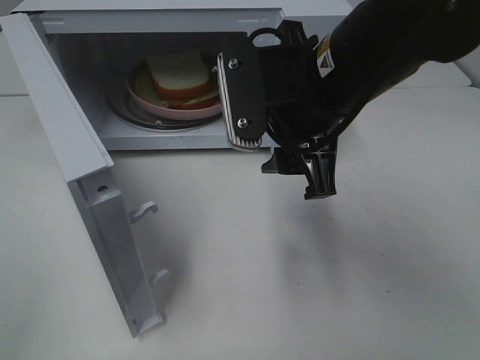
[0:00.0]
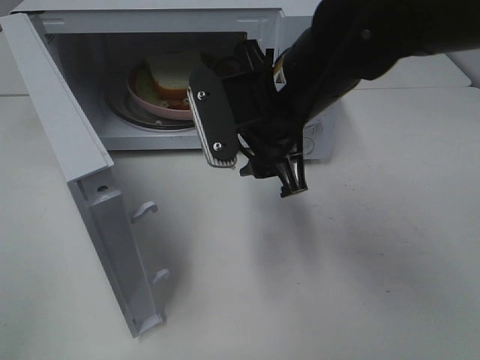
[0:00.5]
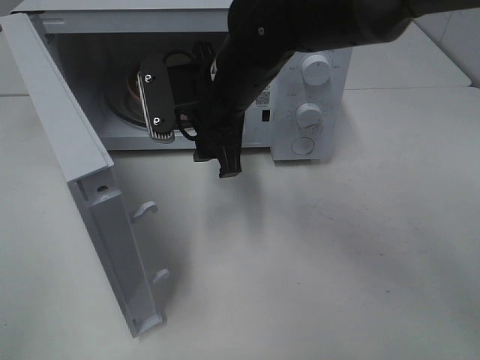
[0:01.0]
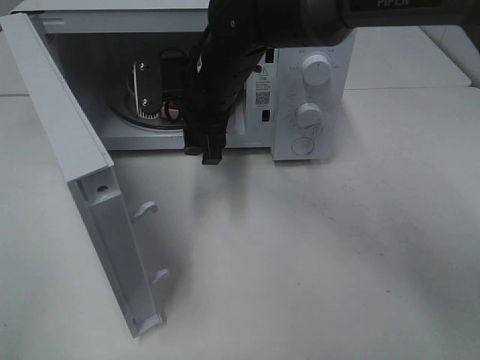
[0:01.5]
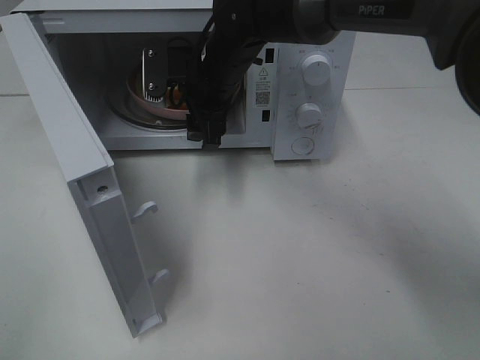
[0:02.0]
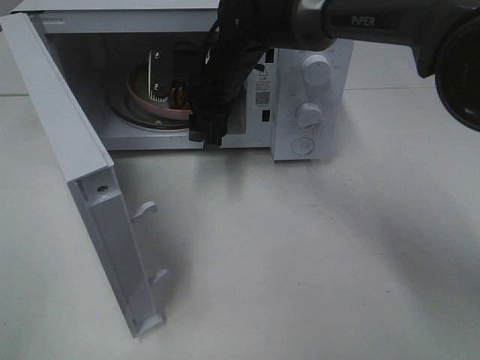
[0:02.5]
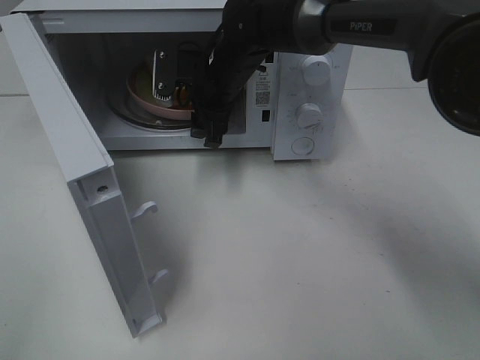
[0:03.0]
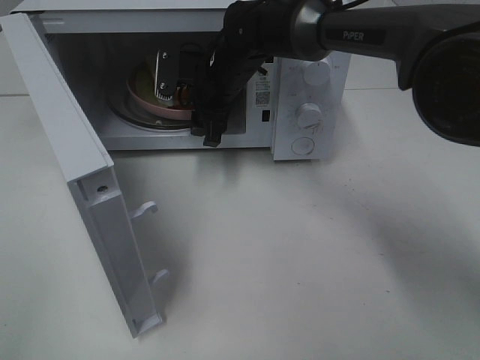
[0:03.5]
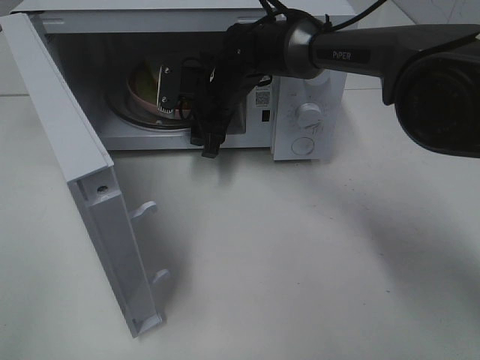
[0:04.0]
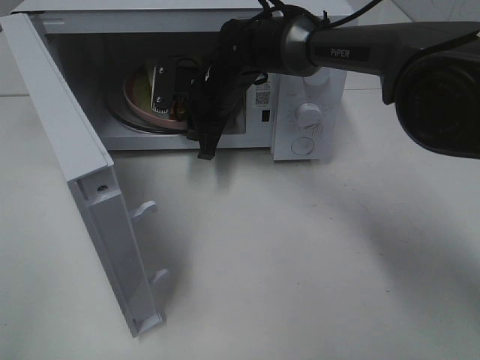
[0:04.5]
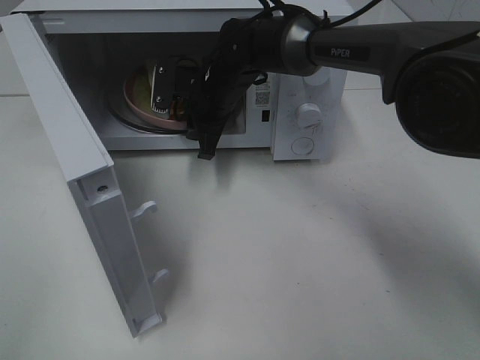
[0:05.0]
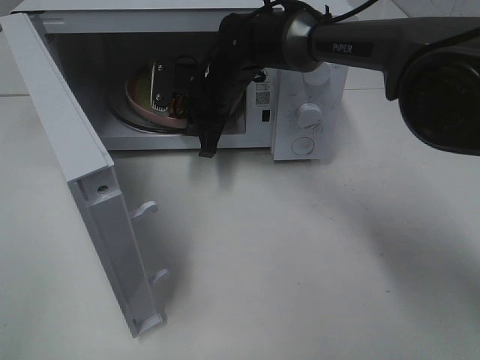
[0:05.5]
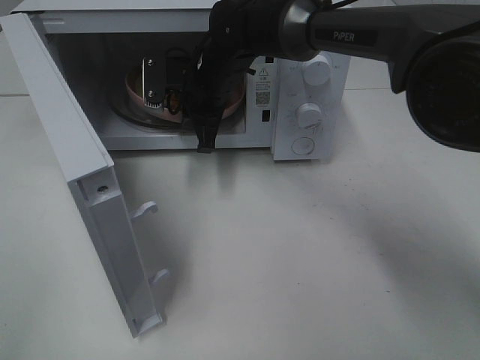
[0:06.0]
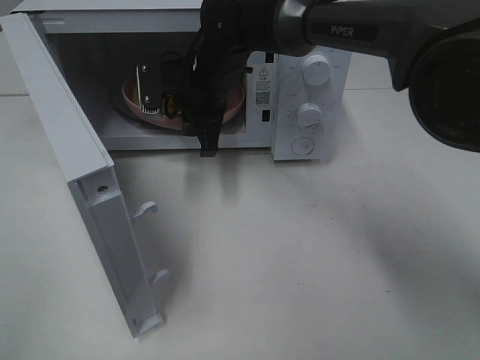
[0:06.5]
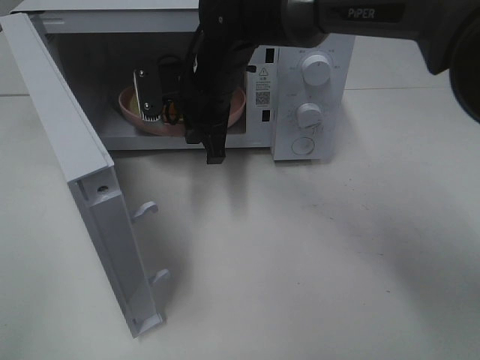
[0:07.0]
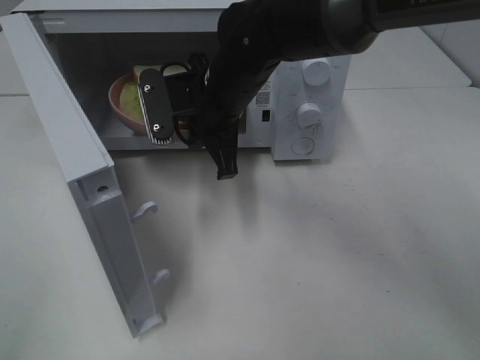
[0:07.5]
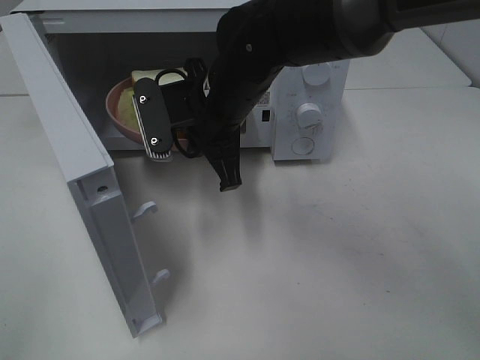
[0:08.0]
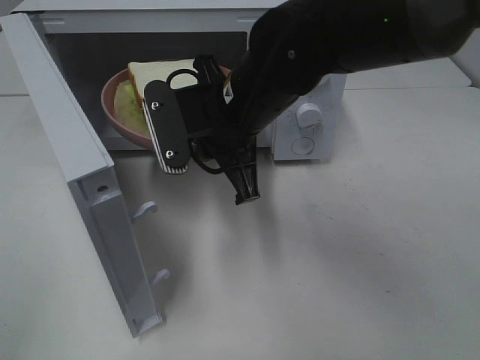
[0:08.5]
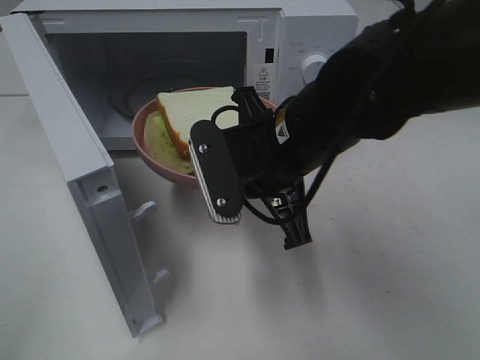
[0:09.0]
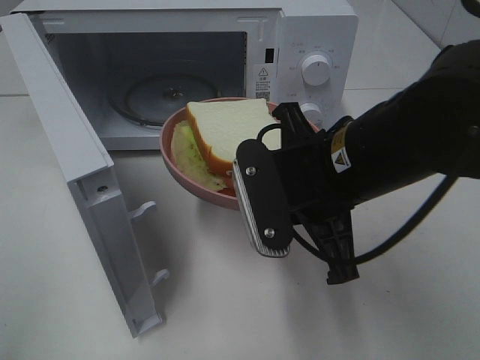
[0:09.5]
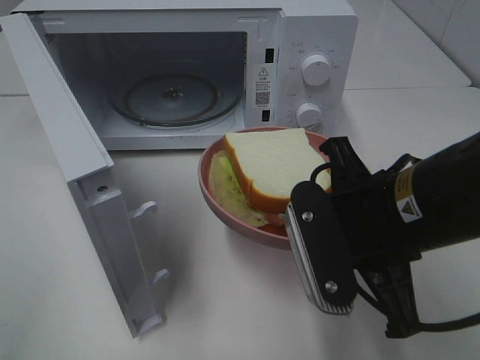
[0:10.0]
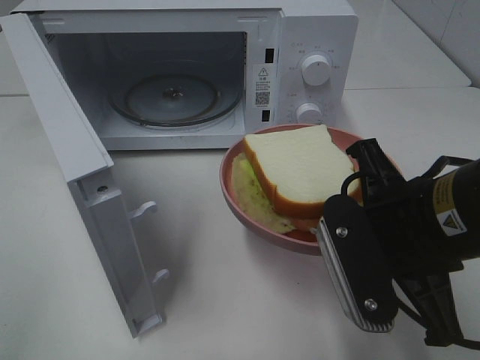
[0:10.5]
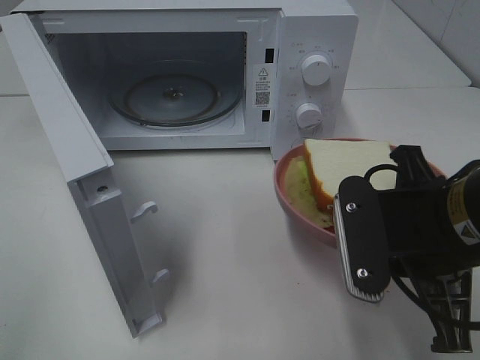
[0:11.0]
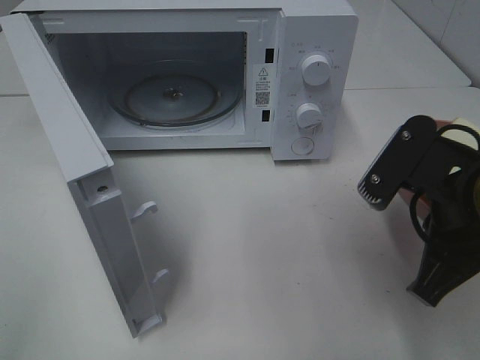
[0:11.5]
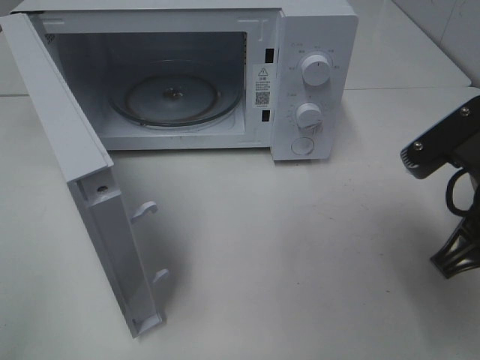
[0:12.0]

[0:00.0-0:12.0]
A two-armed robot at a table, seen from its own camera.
Task of the whole recording: Heat Sandwich.
Step, 0:00.0 to 0:04.0: Right hand: grab the plate with the sandwich.
0:00.0 to 0:02.0: The right gripper travels forward, to the left and downward by approximately 20 cm.
0:02.0 to 0:04.0: The right gripper goes about 5 cm downward.
0:04.0 to 0:06.0: The right gripper closes.
0:06.0 to 0:08.0: The right gripper moves backward, approximately 10 cm.
0:08.0 to 0:10.0: The right gripper is displaced backward and to the right by approximately 20 cm.
0:10.0 to 0:12.0: The right gripper travels to the right by about 5 cm.

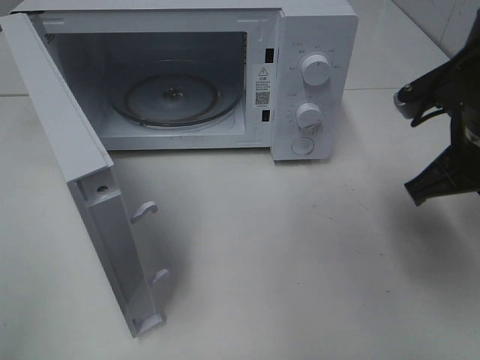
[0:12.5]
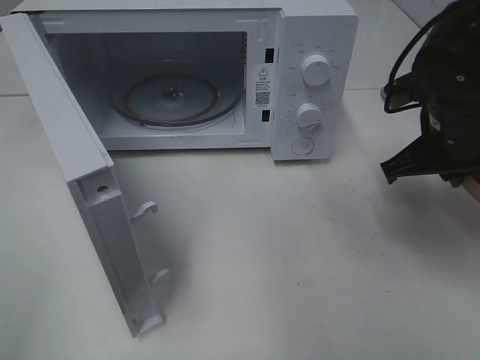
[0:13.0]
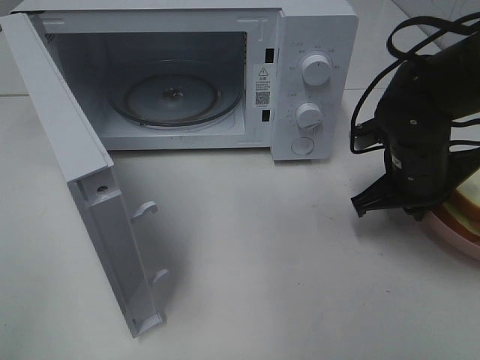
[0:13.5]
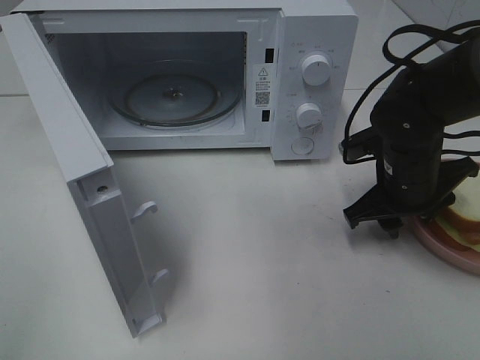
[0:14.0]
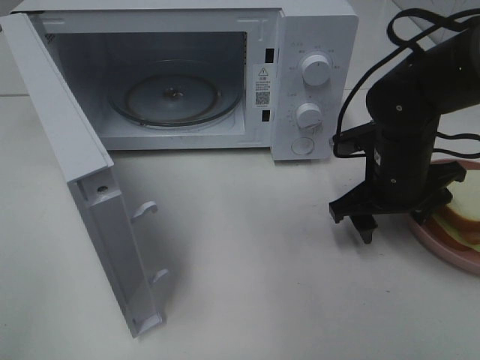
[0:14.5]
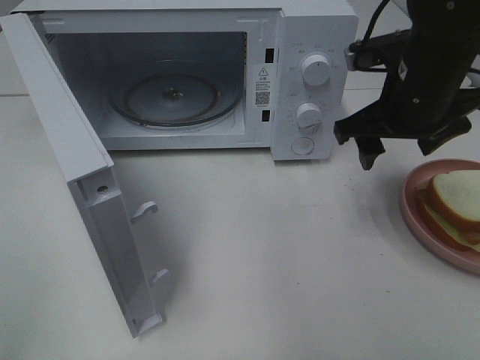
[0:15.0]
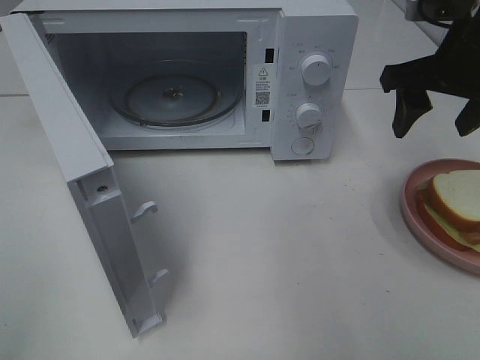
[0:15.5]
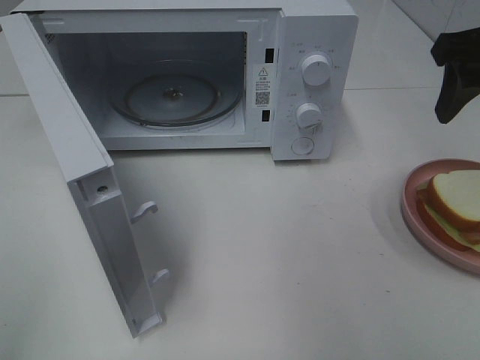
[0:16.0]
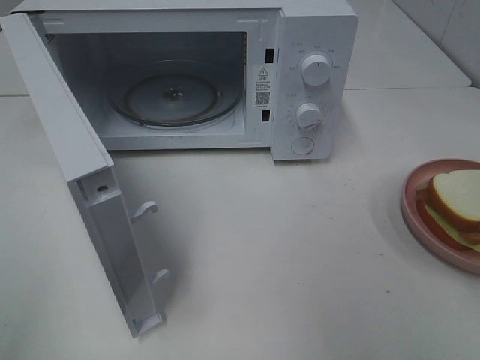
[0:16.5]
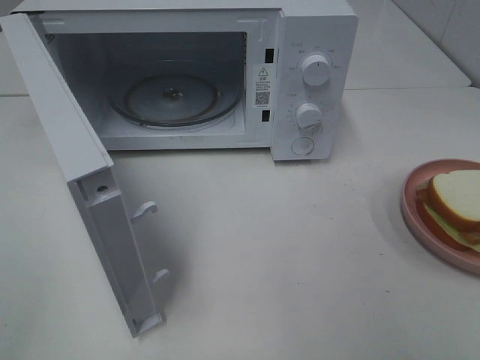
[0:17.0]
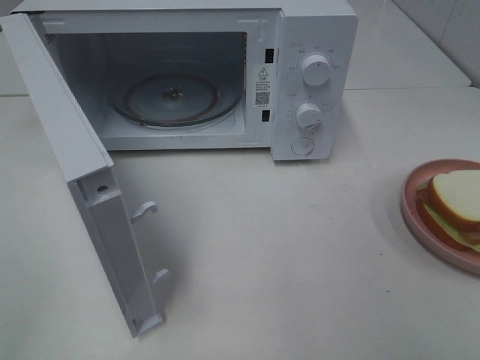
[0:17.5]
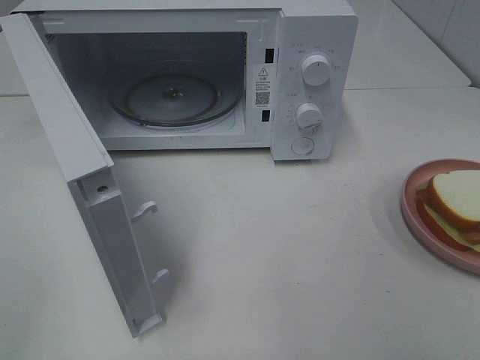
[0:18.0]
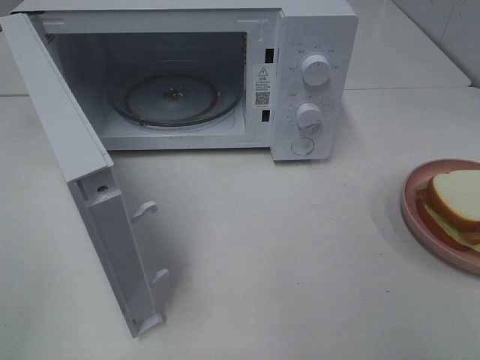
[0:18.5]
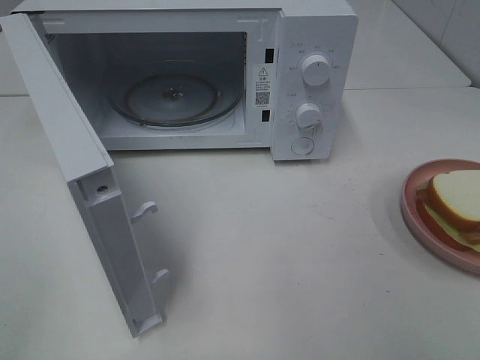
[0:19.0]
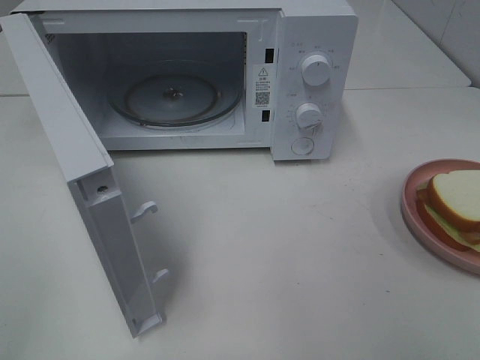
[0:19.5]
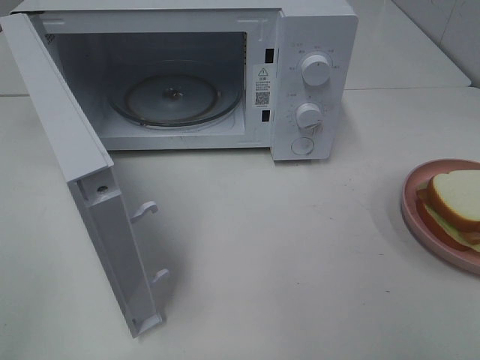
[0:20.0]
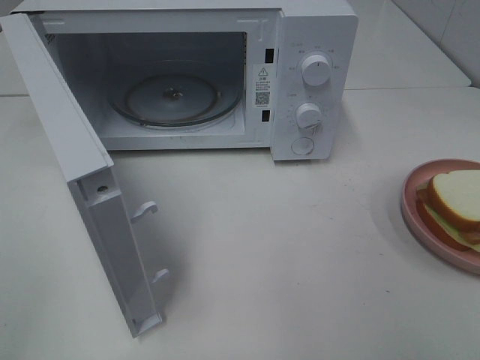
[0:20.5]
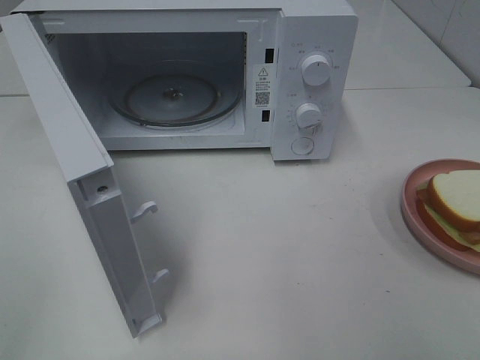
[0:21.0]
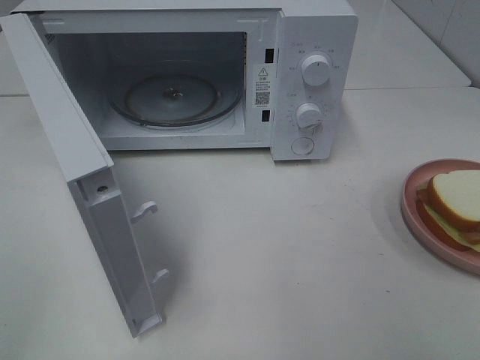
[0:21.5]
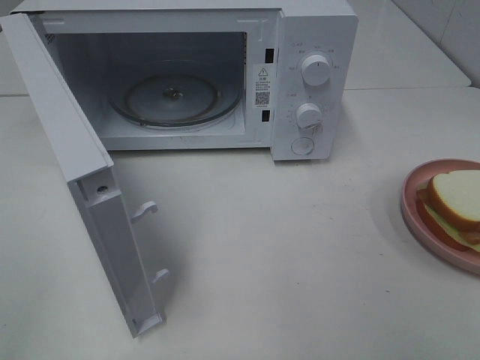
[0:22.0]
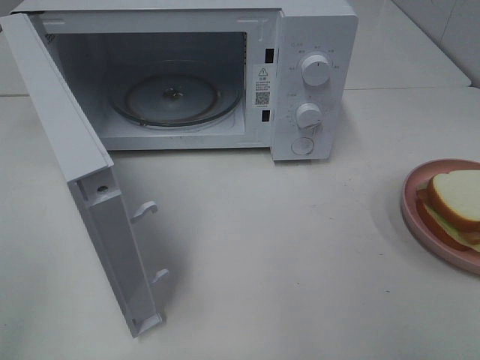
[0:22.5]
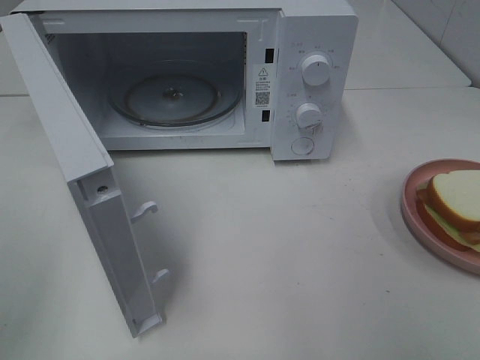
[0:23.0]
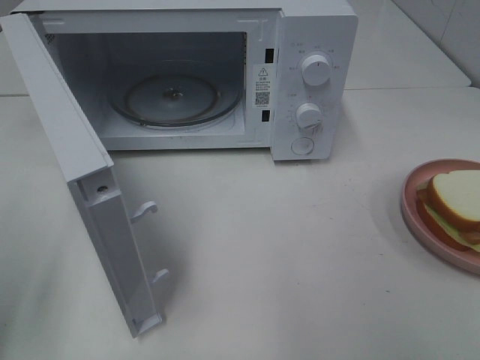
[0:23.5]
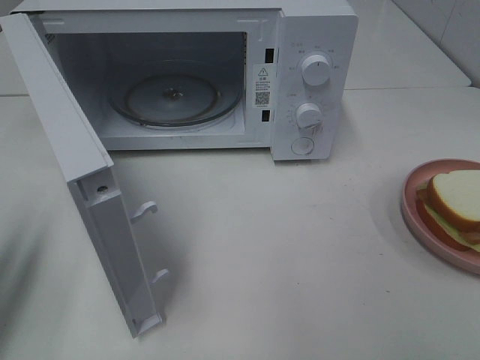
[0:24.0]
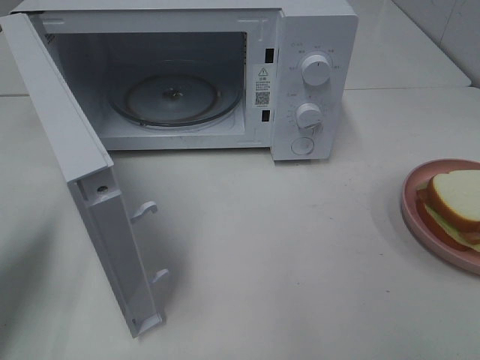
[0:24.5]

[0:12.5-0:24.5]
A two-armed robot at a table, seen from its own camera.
Task of the whole recording: Heat Sandwich.
Step, 0:12.5 to 0:15.0: Right hand: place the plate on the table.
0:12.5 to 0:14.5: The right gripper travels downward and forward by about 10 cm, and opens up.
0:14.5 to 0:16.5: The right gripper travels upward, backward and to the right by approximately 25 cm.
0:18.5 to 0:20.5: Neither gripper changes place.
0:22.5 to 0:24.5: The left gripper moves forward and downward, roughly 20 cm, and closes its fingers.

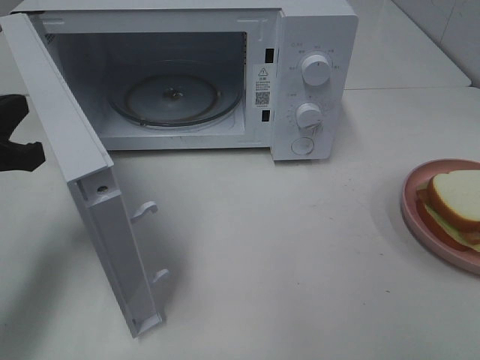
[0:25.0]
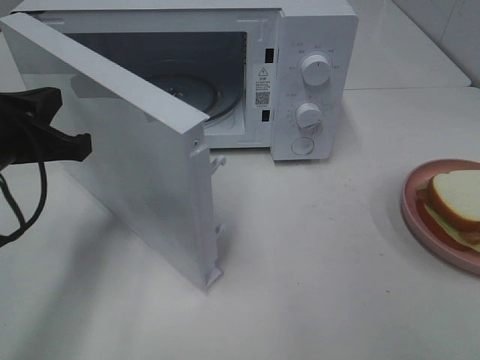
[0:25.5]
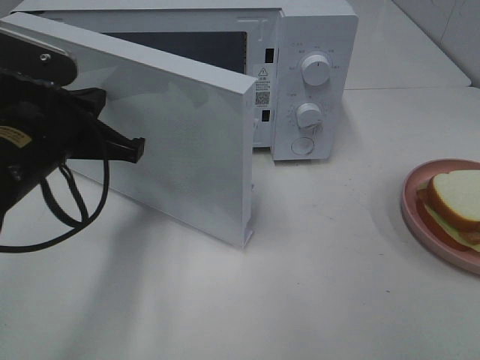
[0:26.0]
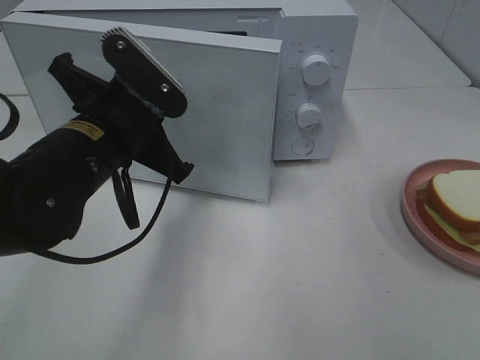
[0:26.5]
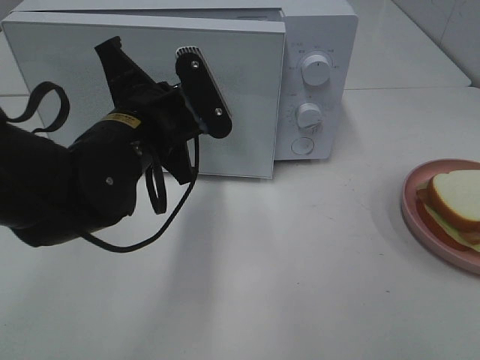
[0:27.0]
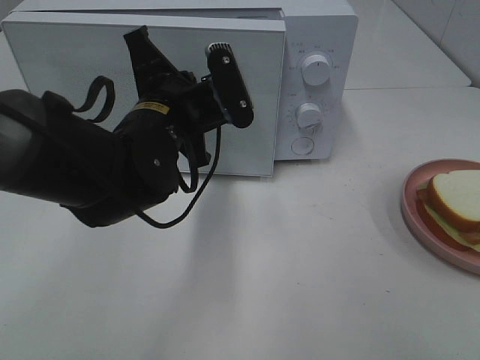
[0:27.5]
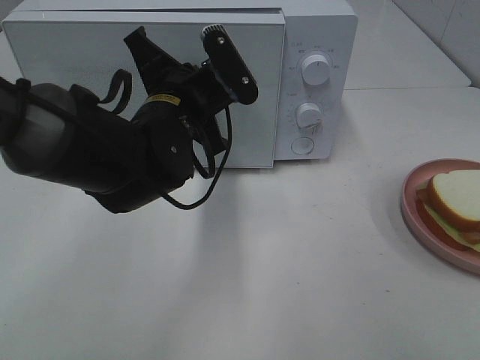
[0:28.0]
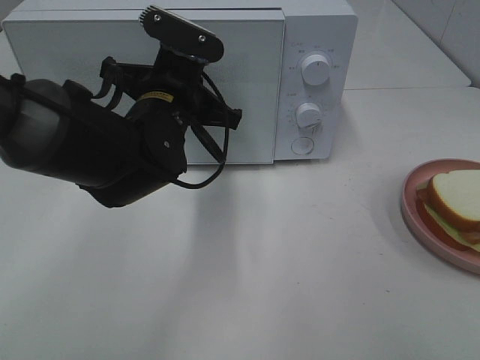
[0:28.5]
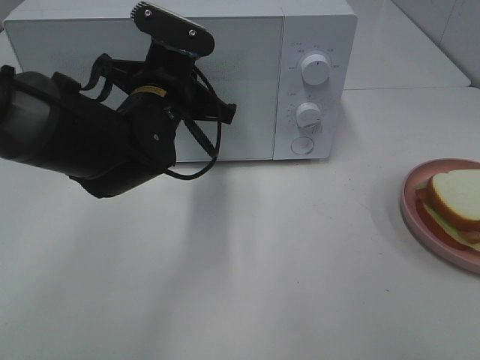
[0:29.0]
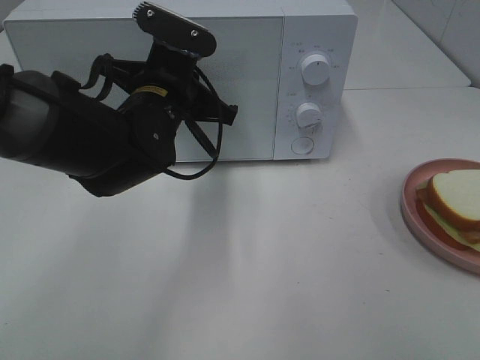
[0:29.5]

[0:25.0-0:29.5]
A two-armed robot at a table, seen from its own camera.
Task of the whole recording: Heat Sandwich.
0:25.0 to 0:27.0: The left gripper heads to the right, covering about 15 cm.
0:27.0 to 0:29.5: The left gripper heads forward, covering about 5 cm.
